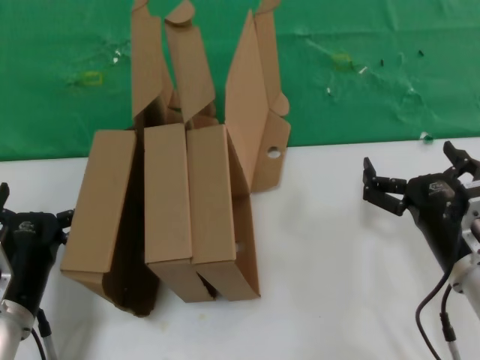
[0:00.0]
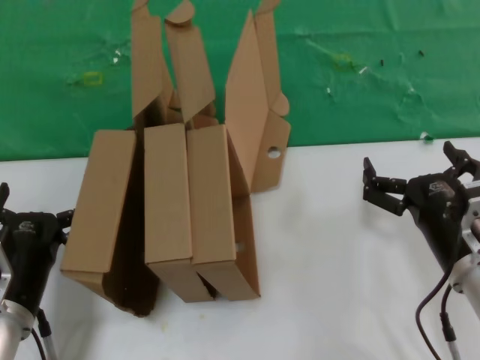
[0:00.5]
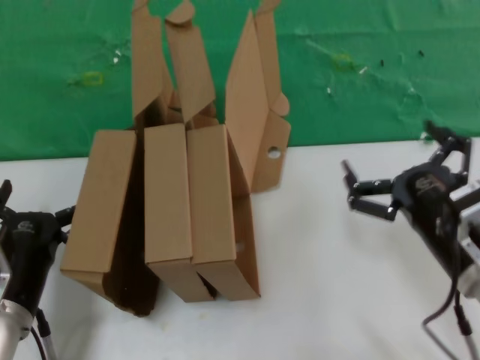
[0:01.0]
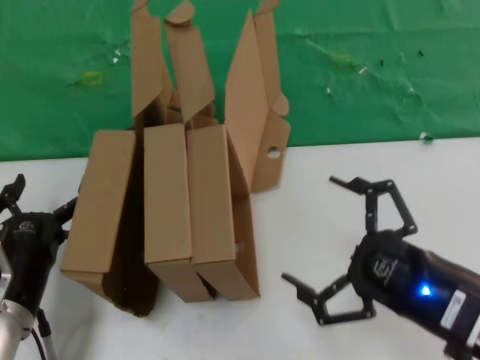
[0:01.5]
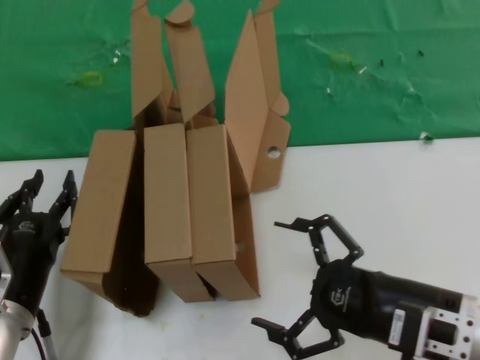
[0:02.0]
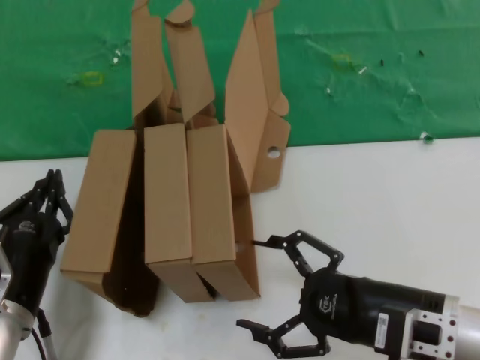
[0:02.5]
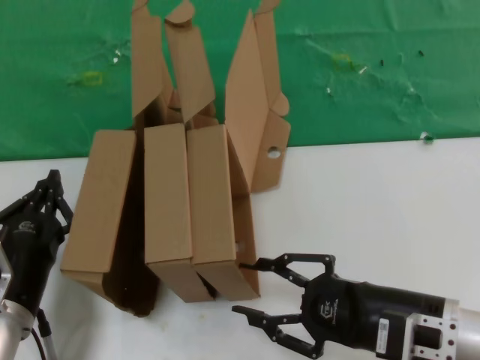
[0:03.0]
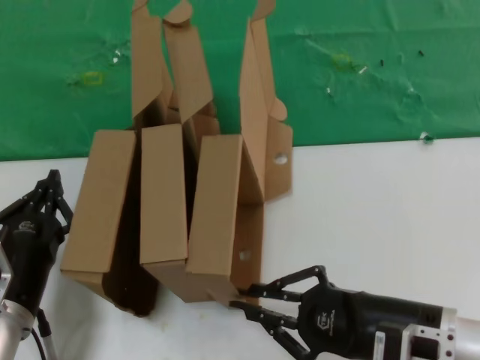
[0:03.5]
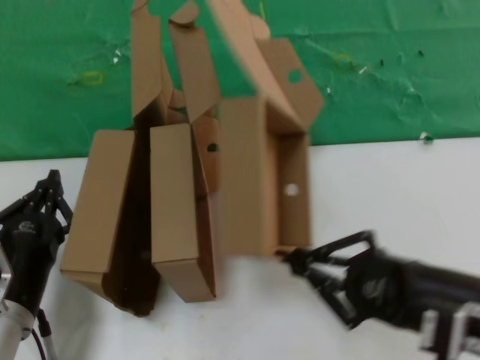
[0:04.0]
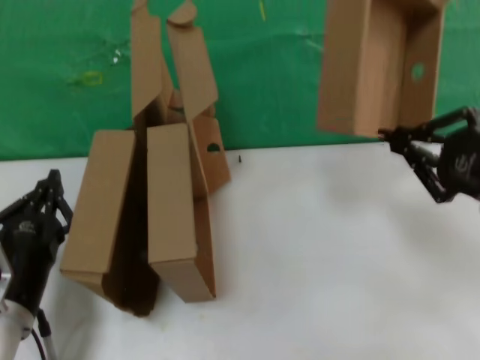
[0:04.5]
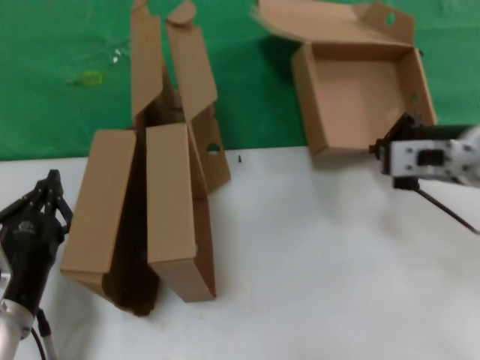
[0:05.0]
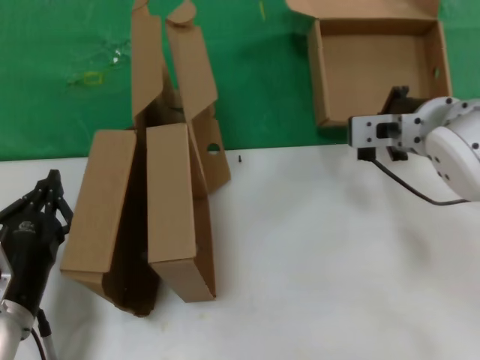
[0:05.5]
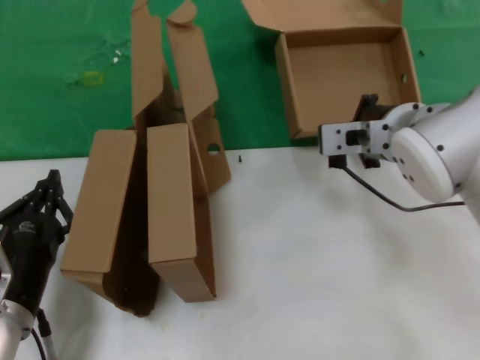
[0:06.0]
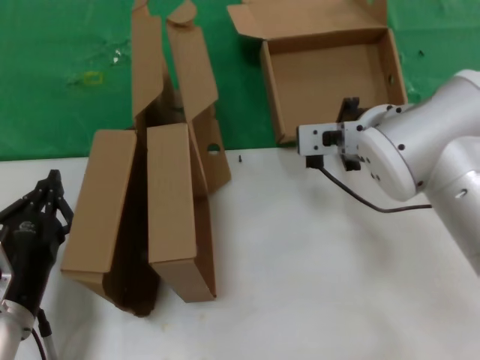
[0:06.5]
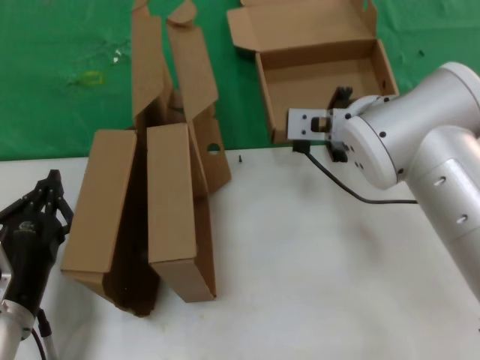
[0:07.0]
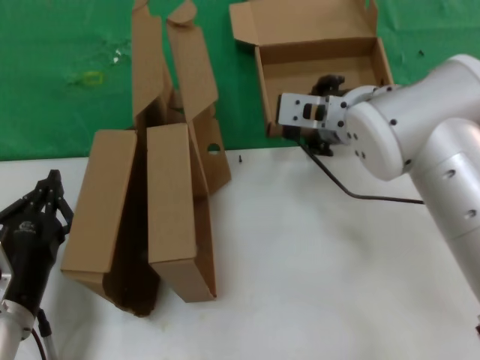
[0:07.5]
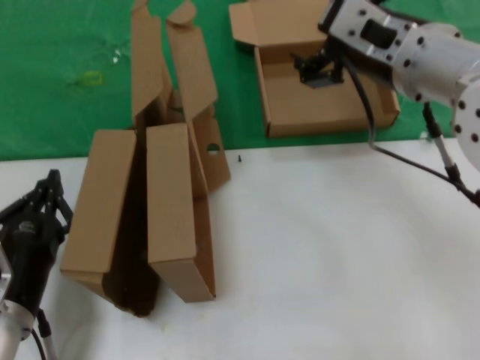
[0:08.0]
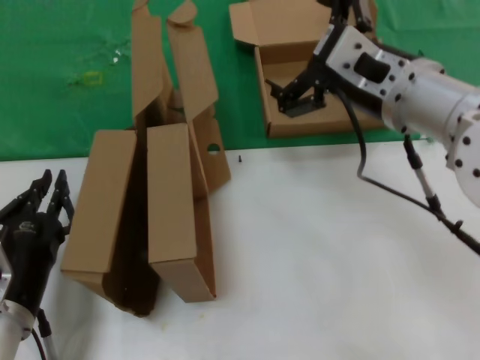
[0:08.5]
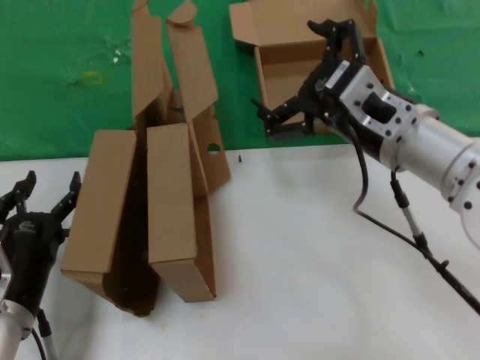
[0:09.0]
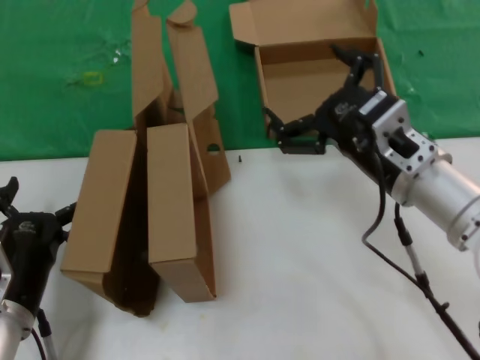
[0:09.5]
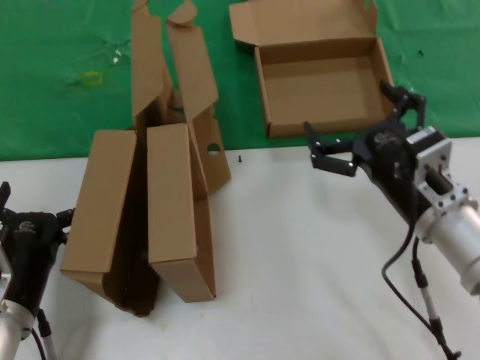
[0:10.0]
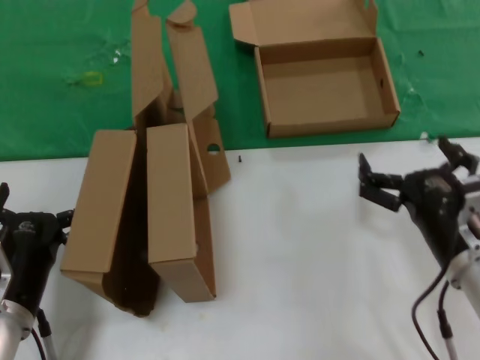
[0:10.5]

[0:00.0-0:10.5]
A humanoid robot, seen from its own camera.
Task of the whole recording: pick up the paper box and put it at the back.
Step, 0:00.0 to 0:03.5: Grasp the paper box.
Step, 0:04.0 to 0:07.0: Place the paper box on the table.
0:00.0 to 0:02.0: The right hand goes about 5 cm backward.
0:04.0 to 0:06.5: The right hand moves forward, to the left and upward, roughly 25 cm.
0:06.5 to 0:08.5: The right hand travels backward and upward by some 10 cm.
0:08.5 to 0:10.5: The right hand travels downward by about 20 cm.
